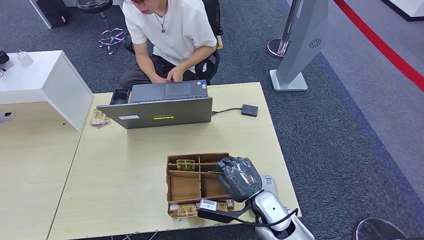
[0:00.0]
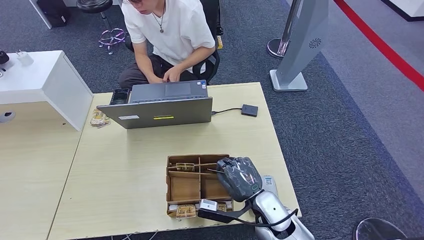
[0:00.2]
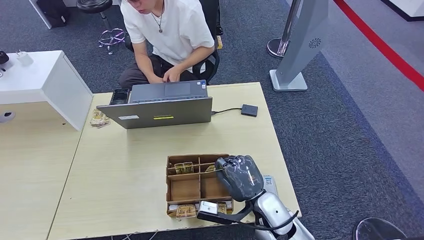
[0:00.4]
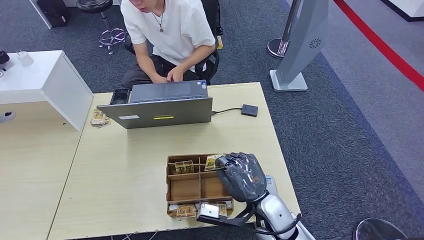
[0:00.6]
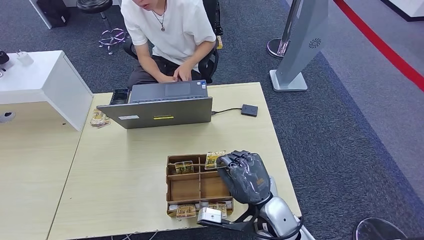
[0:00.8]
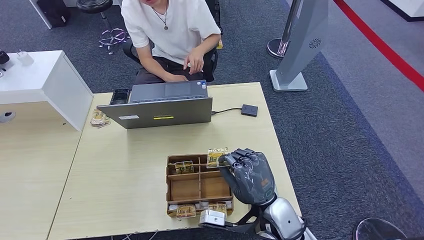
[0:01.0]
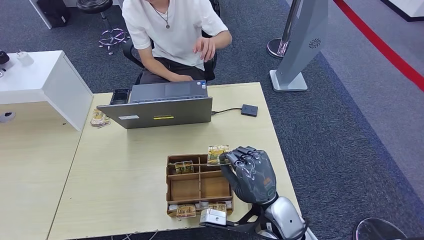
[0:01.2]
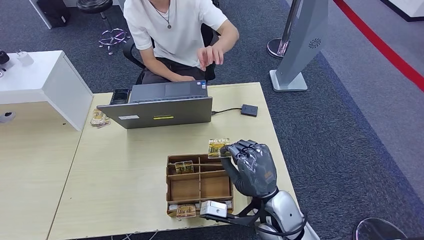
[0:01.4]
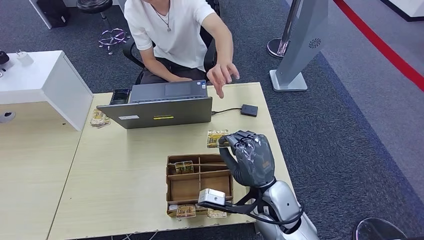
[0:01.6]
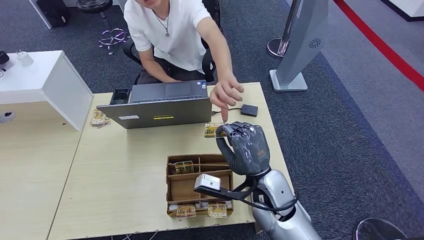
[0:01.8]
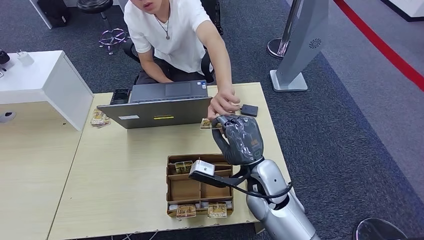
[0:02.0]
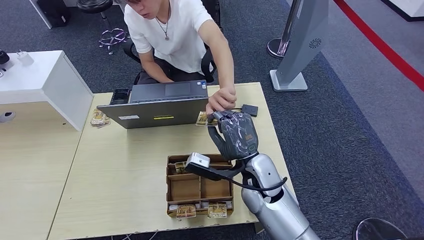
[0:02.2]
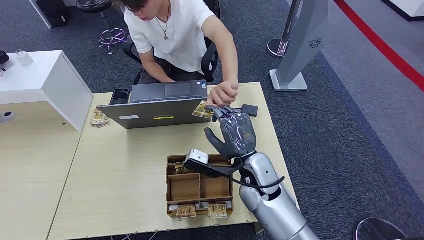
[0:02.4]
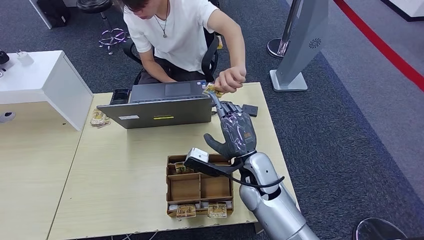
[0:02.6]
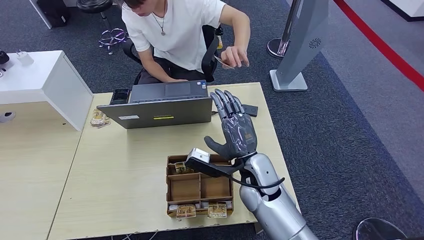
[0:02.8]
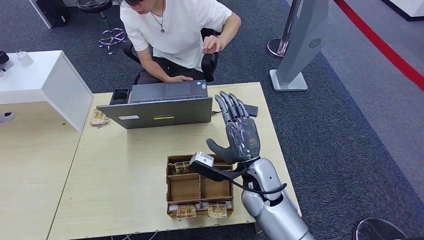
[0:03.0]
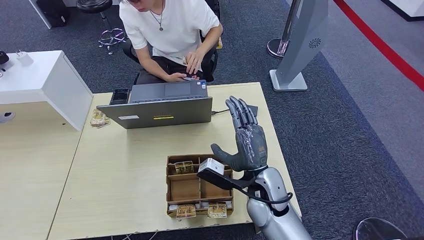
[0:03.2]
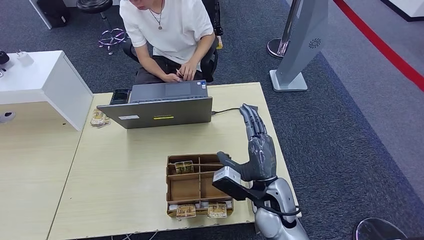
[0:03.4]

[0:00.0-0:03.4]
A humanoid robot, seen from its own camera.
Step, 0:00.0 to 0:01.4: Pick up the room key from the key card box.
Step, 0:01.6 to 0:03.4: Hand the room key to the person.
0:00.0 to 0:01.6: The right hand travels upward by some 10 cm.

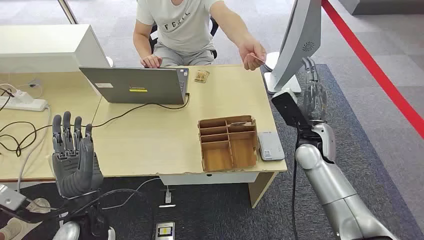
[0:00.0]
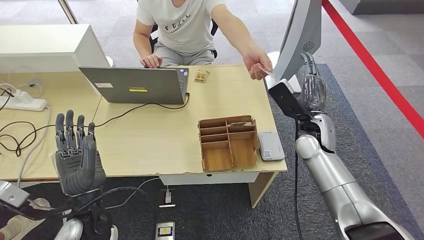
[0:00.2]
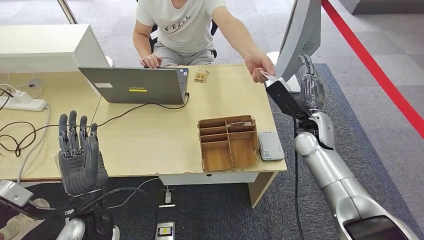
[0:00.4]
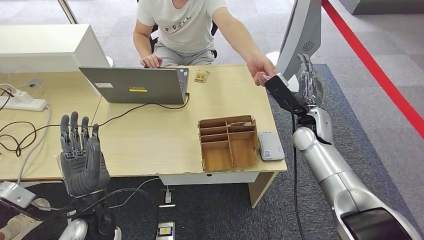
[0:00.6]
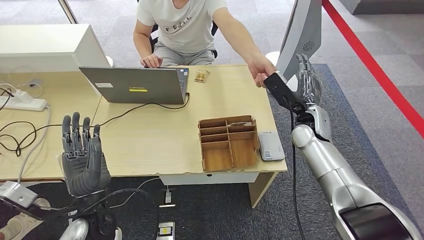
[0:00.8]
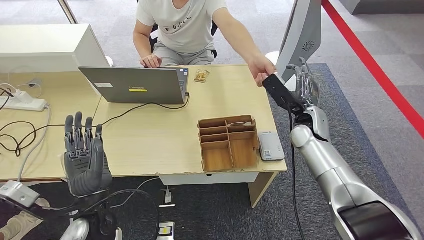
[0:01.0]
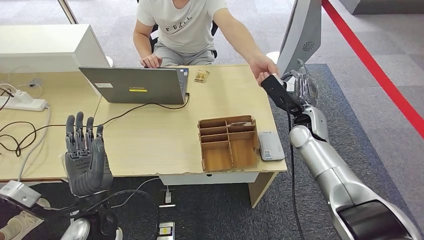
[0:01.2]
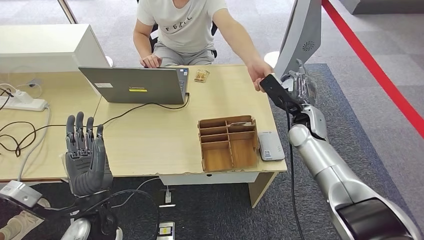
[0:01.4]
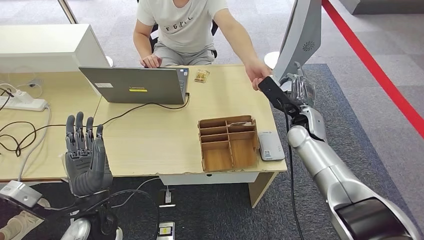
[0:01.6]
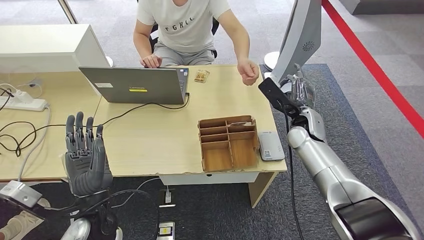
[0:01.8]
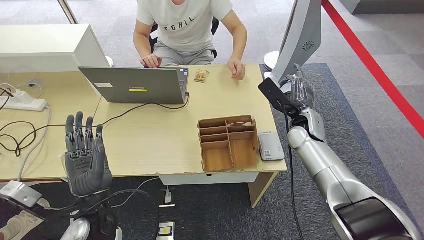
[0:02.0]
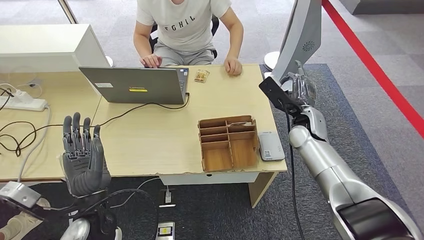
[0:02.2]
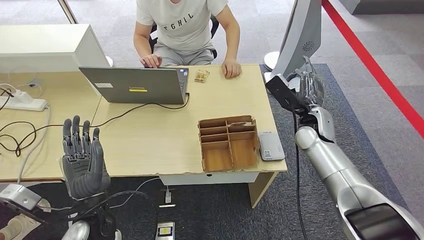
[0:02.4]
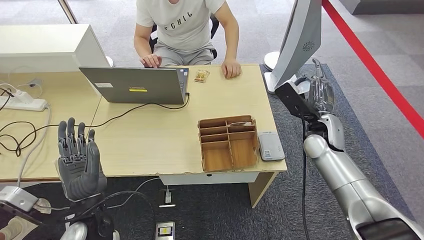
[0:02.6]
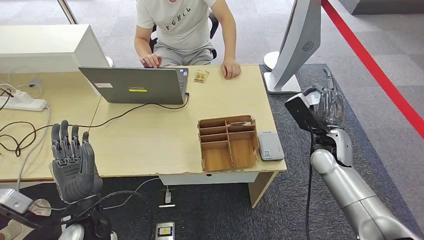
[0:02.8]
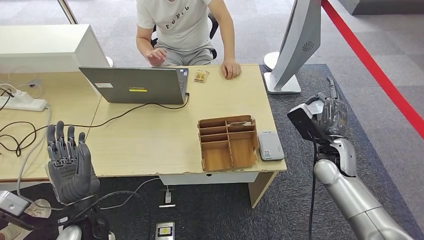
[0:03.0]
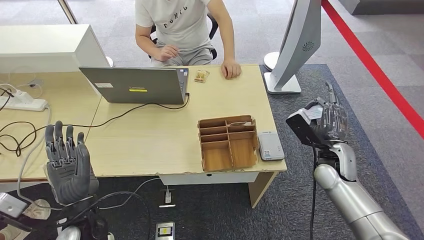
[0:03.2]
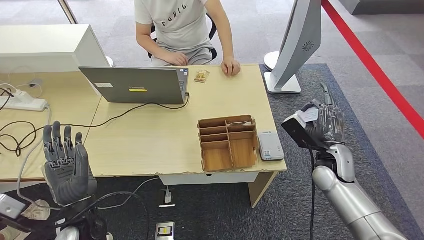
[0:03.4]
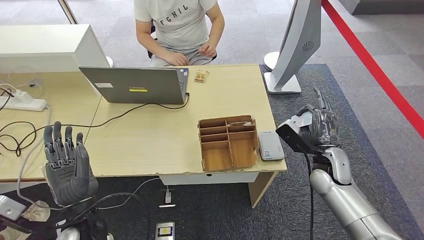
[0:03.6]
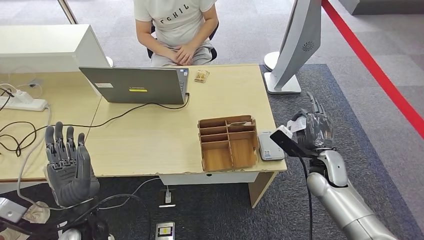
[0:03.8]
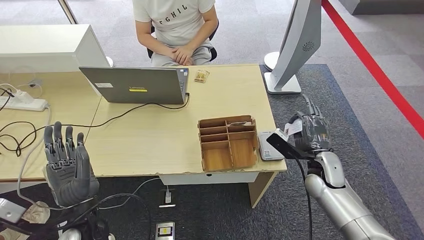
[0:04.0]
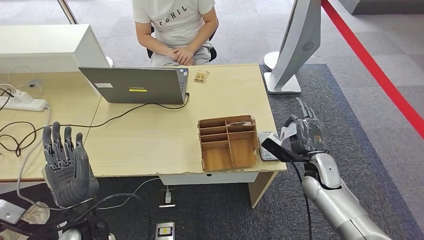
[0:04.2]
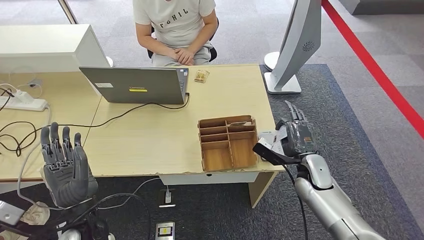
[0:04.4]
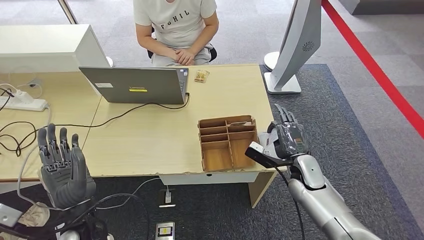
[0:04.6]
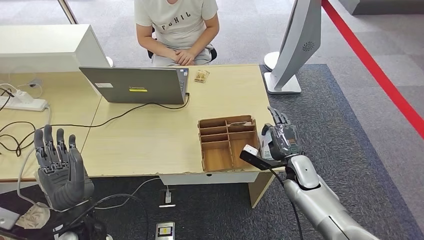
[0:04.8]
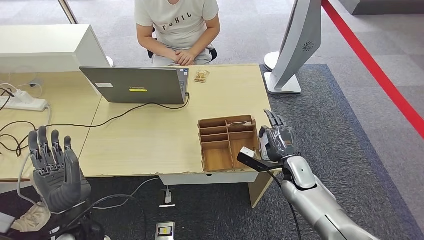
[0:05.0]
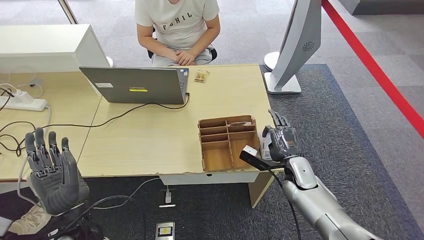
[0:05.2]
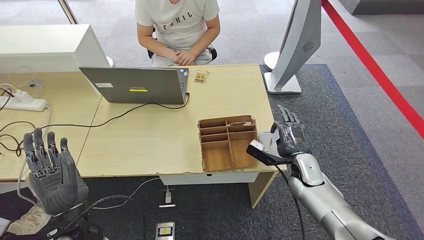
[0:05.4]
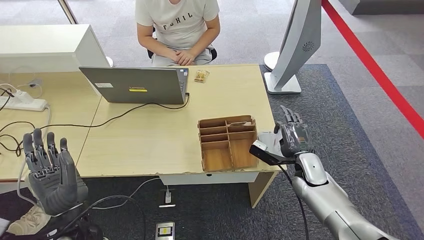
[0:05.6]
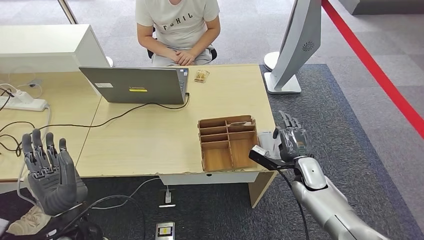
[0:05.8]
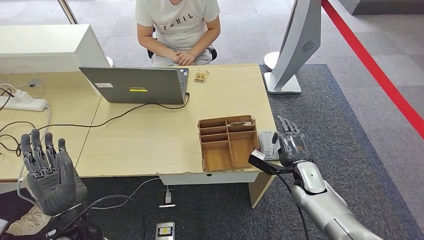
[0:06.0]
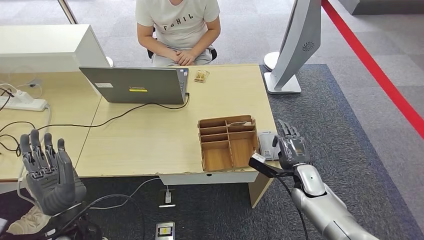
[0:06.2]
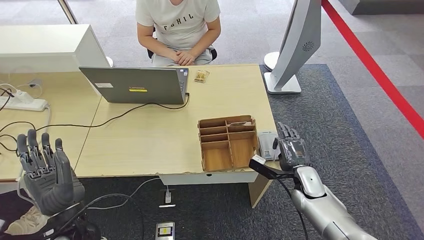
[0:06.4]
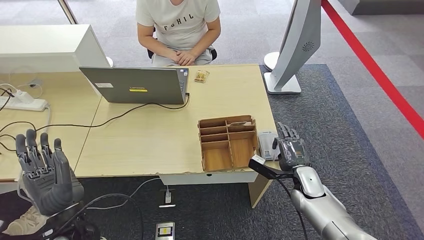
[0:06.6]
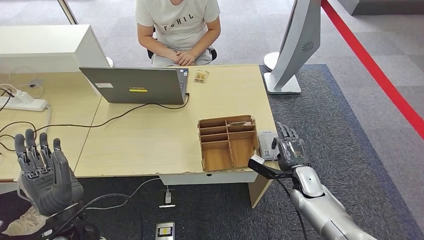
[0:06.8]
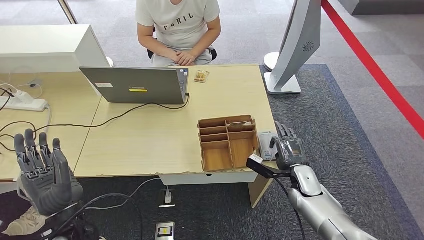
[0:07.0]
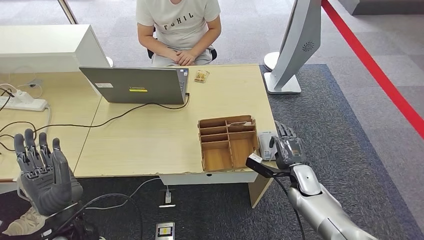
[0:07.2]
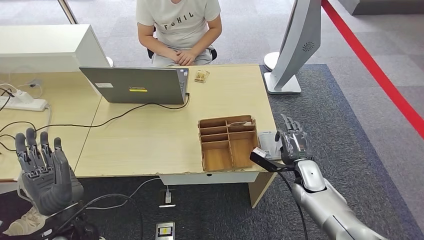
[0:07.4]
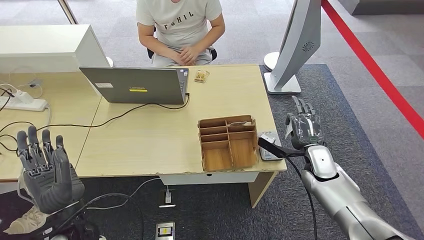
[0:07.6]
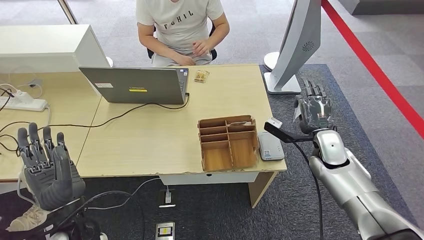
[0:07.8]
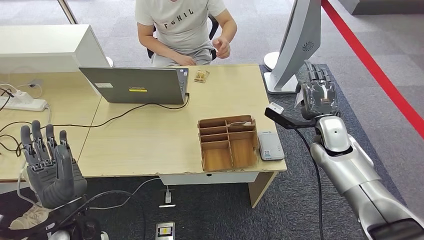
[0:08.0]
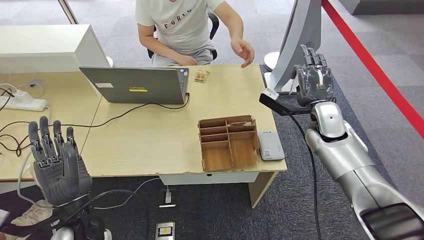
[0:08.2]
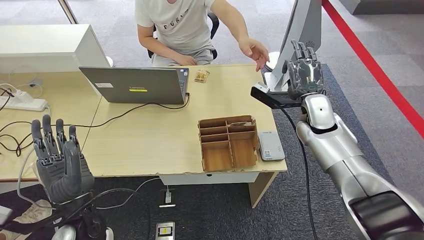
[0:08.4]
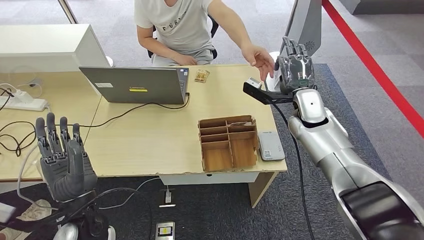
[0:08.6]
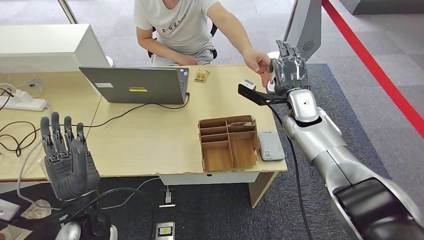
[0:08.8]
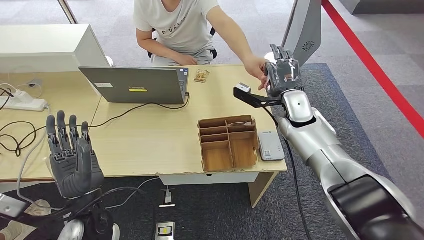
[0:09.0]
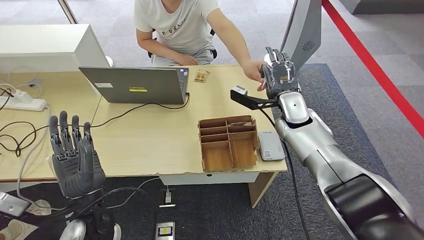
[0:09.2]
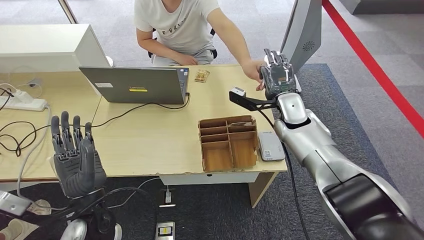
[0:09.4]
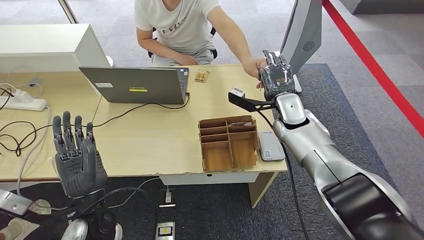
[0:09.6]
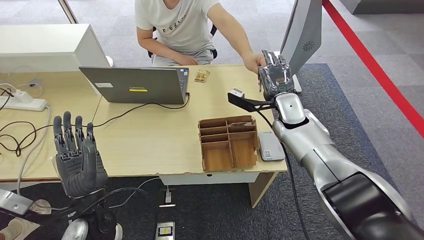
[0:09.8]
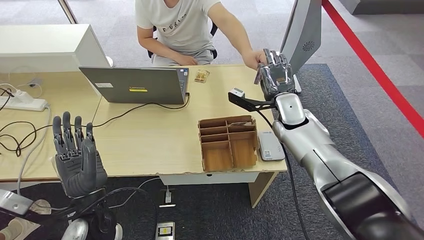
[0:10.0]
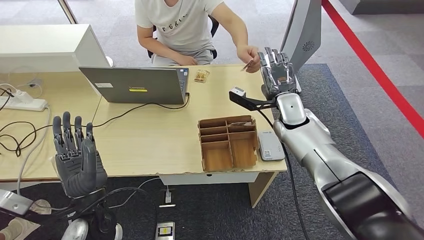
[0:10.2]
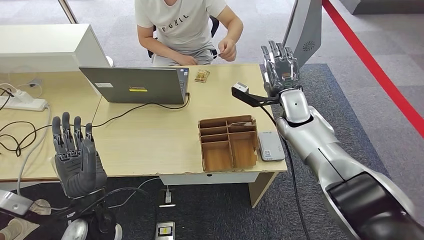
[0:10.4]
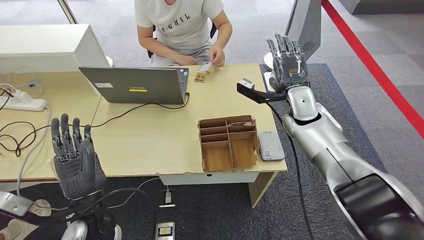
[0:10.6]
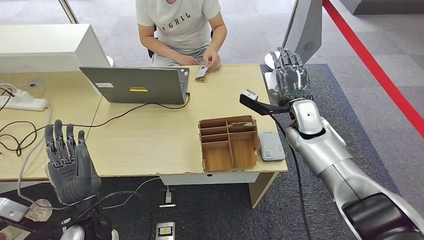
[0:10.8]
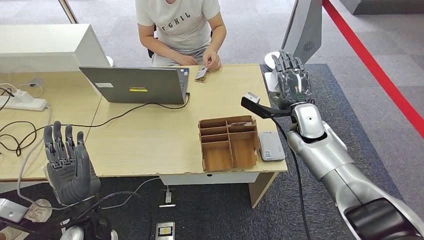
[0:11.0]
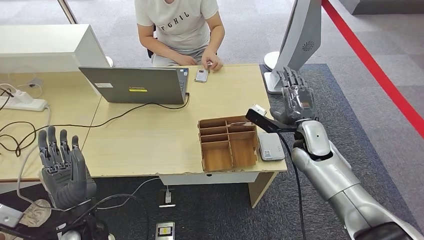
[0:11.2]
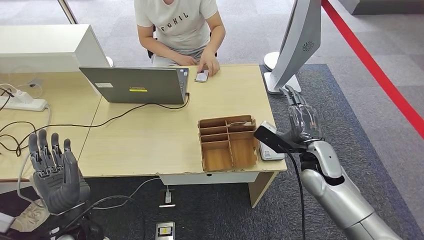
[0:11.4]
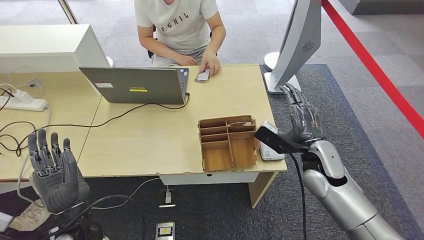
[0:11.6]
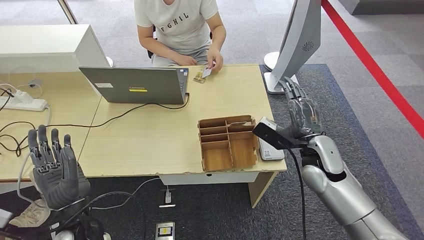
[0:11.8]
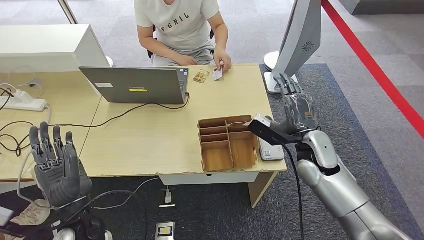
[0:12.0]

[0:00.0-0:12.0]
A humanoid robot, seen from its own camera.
Step, 0:00.0 to 0:02.6: Take the ID card from the person's hand.
Step, 0:02.8 to 0:07.4: Place the ID card on the card reader.
Step, 0:07.8 to 0:11.0: Hand the ID card to the person.
0:01.6 to 0:03.0: The right hand shifts approximately 10 cm backward and to the right.
0:03.0 to 0:04.4: The right hand goes roughly 5 cm downward.
0:04.4 to 0:06.0: There are only small adjustments of the hands.
0:06.0 to 0:07.6: The right hand shifts by about 5 cm.
0:09.0 to 0:10.4: The hands make only small movements.
0:10.4 to 0:12.0: The right hand goes approximately 10 cm backward.

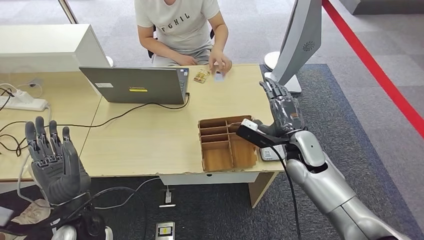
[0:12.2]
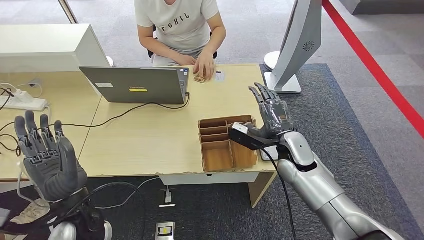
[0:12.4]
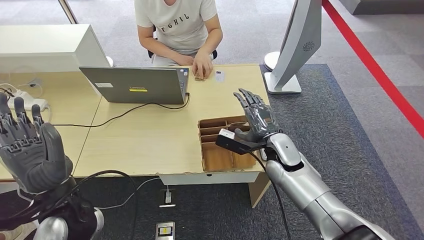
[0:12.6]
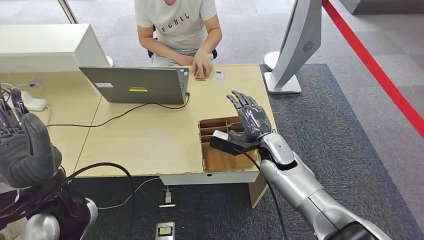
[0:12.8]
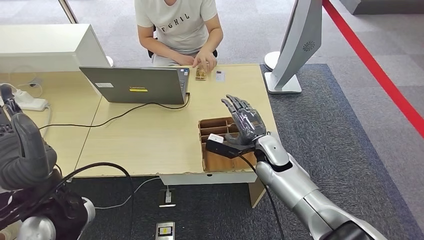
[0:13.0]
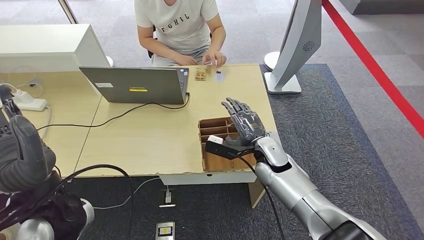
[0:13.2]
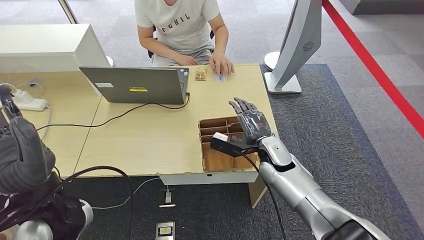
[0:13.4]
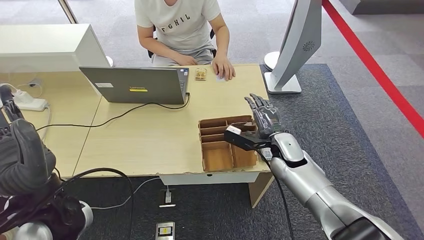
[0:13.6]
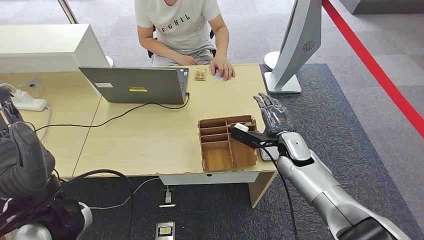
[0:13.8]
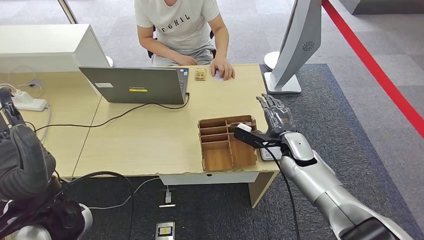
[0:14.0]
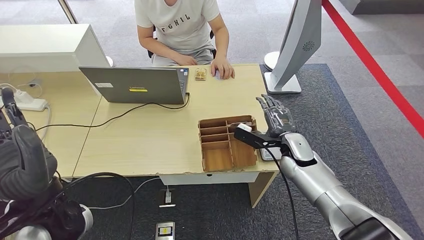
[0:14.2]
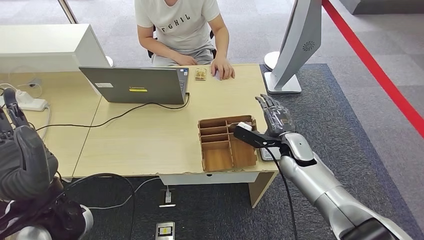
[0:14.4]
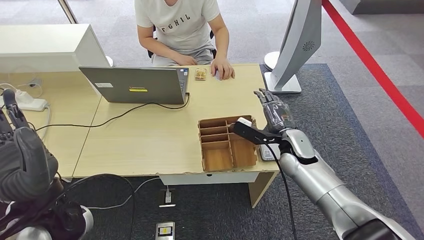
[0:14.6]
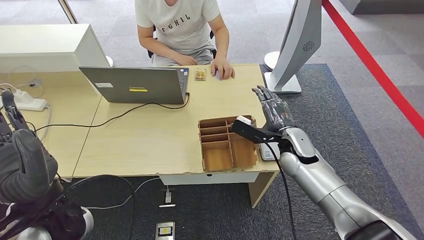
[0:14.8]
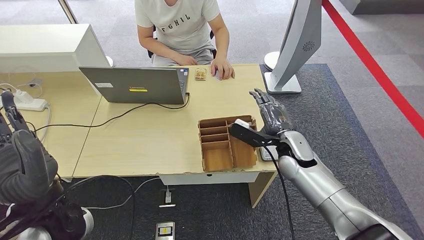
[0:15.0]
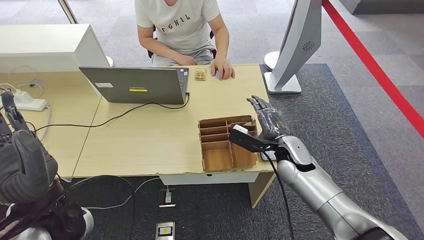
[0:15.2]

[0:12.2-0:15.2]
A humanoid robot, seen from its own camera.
0:12.2 to 0:13.8: The left hand is displaced upward by roughly 10 cm.
0:13.8 to 0:15.2: The hands make only small movements.
